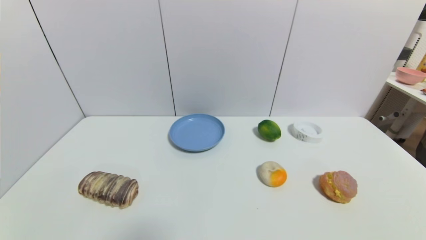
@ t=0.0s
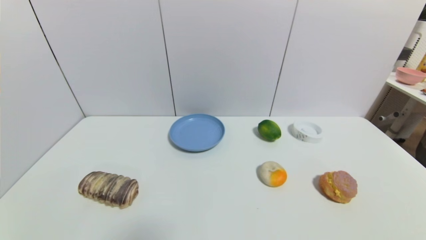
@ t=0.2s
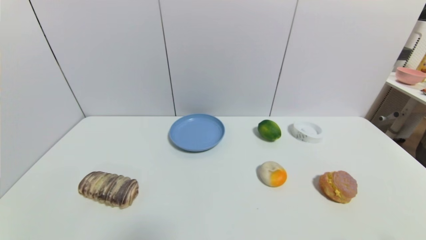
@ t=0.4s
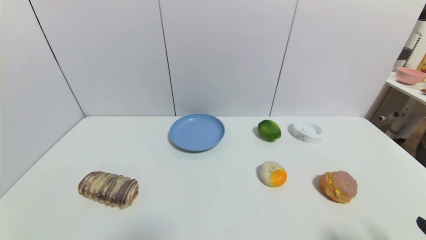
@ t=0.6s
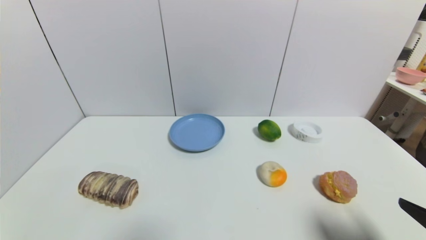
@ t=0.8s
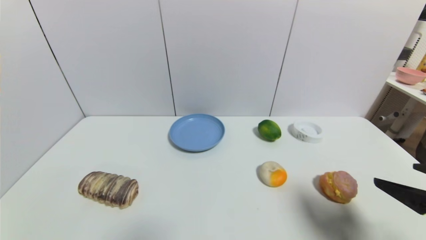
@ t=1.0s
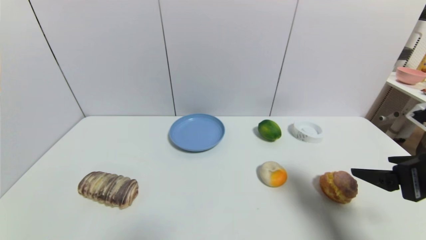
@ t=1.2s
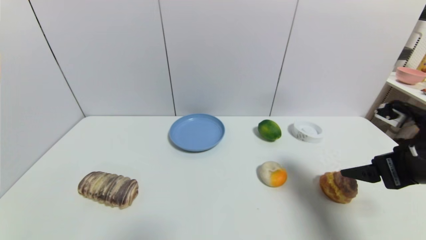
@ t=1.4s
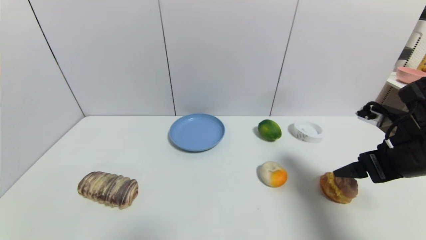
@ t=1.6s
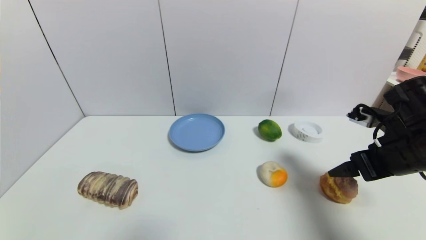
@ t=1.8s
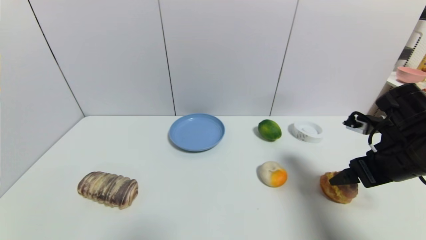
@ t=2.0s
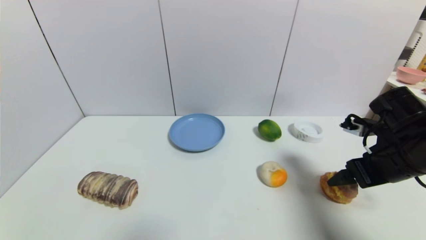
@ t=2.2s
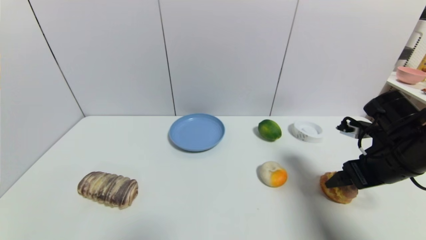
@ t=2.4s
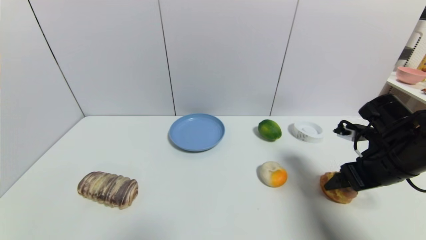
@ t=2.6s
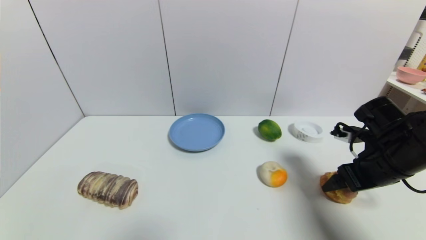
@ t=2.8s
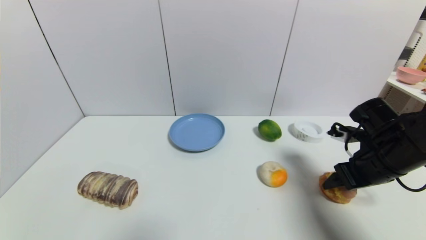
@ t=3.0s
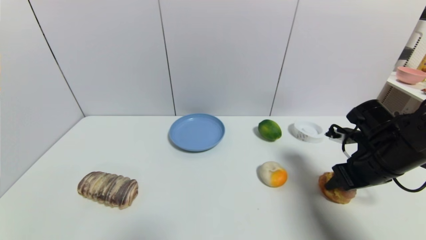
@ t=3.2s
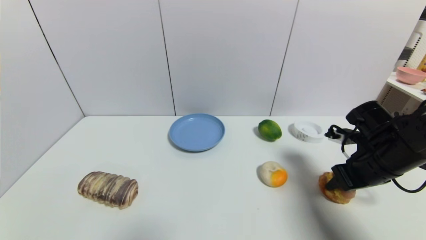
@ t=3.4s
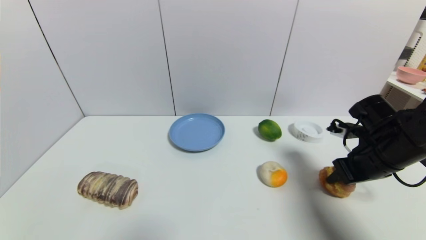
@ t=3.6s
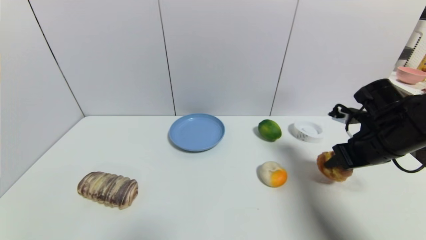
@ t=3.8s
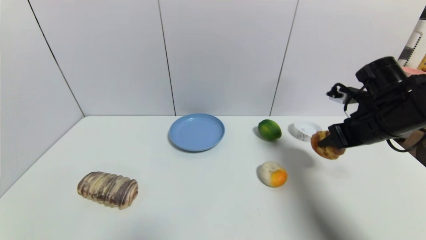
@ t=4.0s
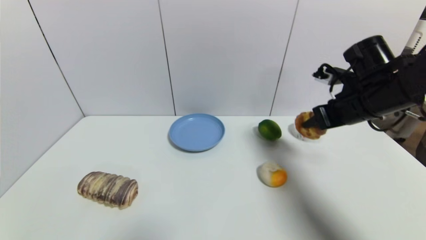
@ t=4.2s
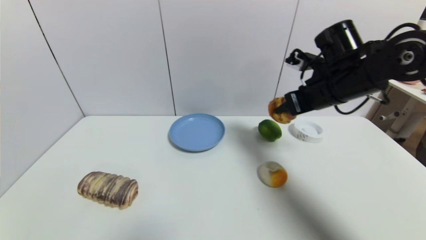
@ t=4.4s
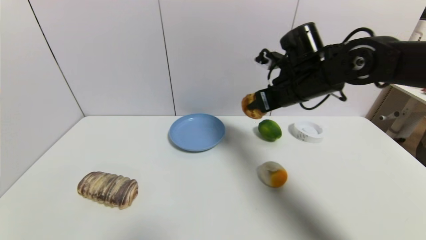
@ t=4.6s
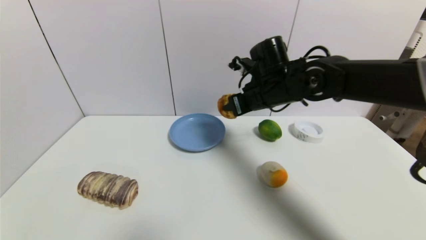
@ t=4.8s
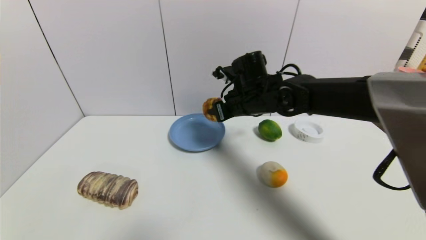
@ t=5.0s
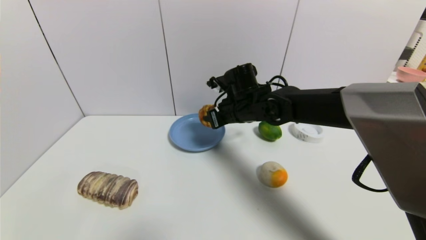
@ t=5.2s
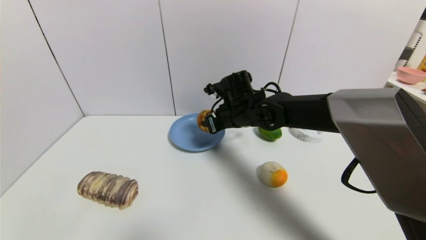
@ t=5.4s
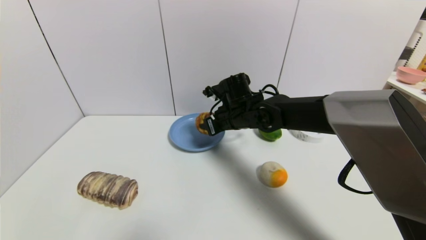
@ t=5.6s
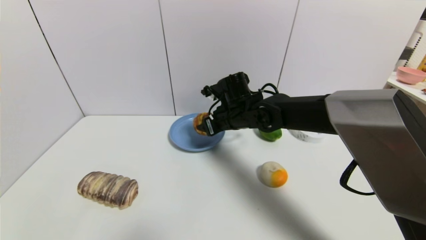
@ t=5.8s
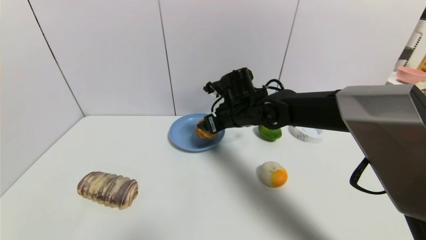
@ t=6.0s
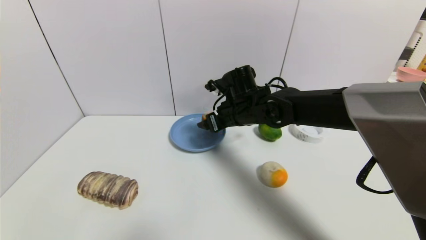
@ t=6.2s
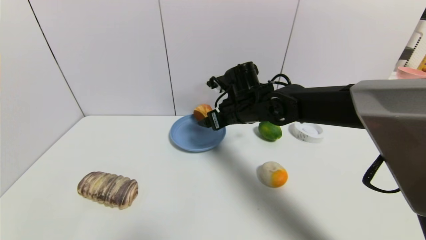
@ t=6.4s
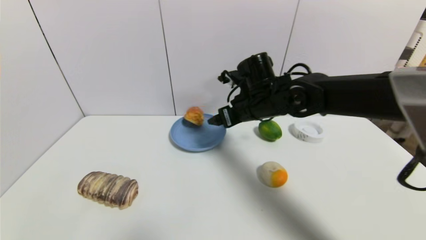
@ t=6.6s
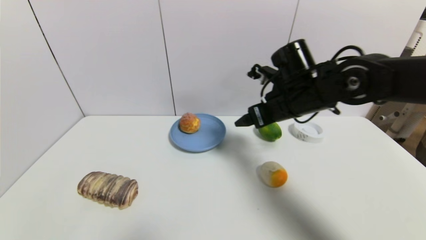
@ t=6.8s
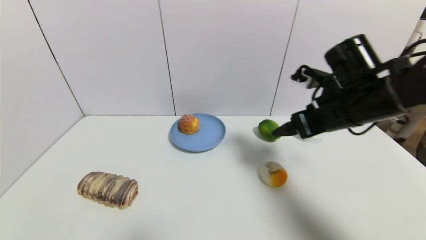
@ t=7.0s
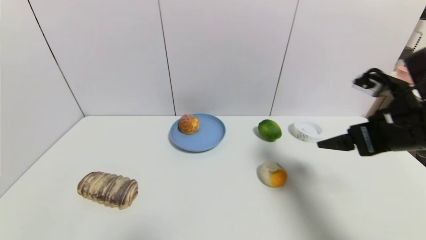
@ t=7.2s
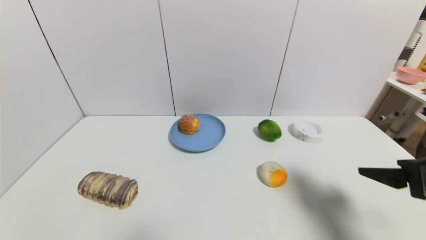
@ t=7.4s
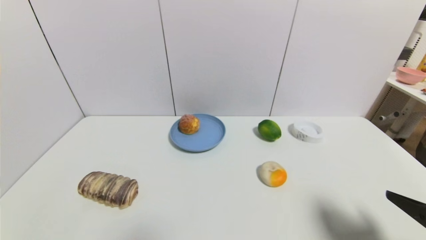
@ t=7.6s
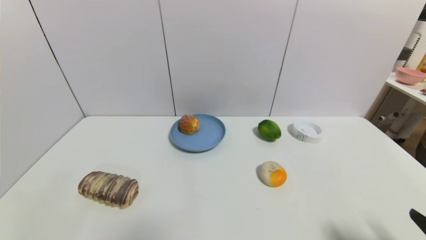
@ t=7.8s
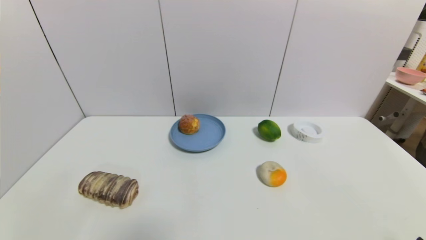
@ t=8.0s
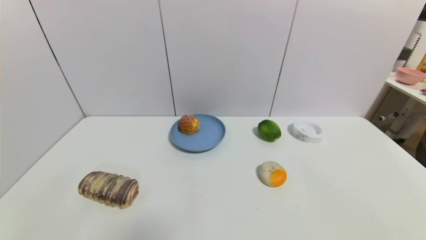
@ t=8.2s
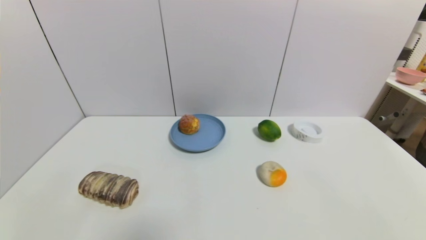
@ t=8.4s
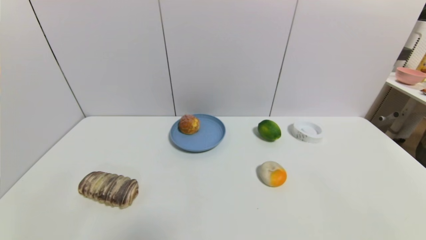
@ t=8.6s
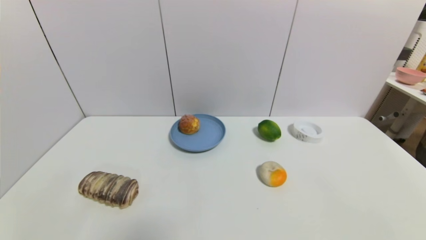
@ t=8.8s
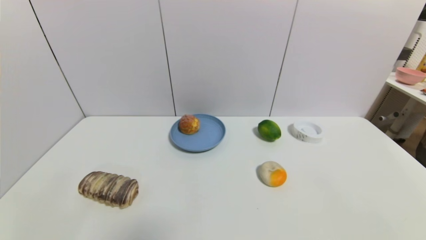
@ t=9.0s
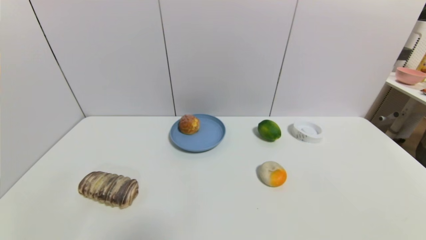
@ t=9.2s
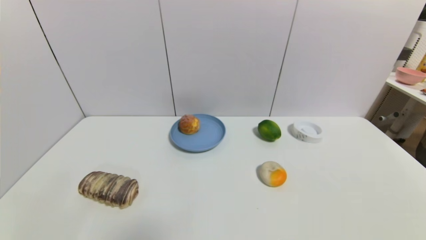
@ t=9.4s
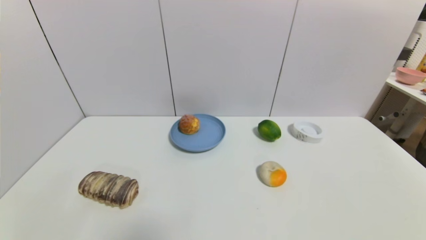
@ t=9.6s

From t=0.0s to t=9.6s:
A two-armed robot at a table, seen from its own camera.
Task of the whole recording: use a gripper to pick the target object and place on the blue plate.
Step, from t=0.0s to t=3.2s: Grasp the round bread with the right gripper.
Step, from t=3.4s to t=6.0s: Place the round bread on the blue plate with the right gripper.
From t=0.0s to t=1.6s: The right gripper shifts some 25 cm forward and upward.
From t=1.6s to t=3.2s: The right gripper heads downward, covering some 5 cm, and closes its fingers.
From t=3.2s to t=4.8s: The right gripper is displaced to the left, forward and upward by some 25 cm.
From t=4.8s to t=6.4s: The right gripper opens up.
From t=6.4s to t=8.0s: The right gripper heads backward and to the right, covering roughly 50 cm.
